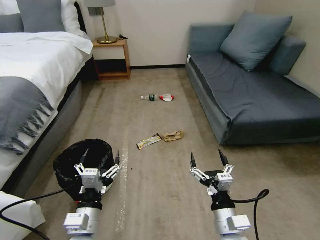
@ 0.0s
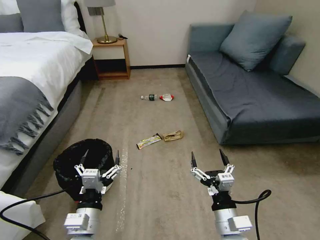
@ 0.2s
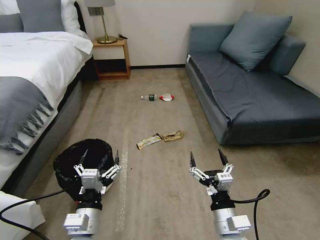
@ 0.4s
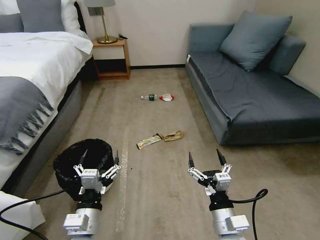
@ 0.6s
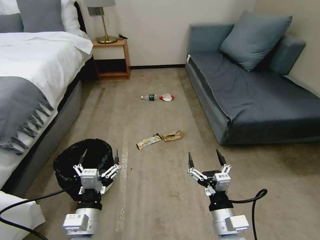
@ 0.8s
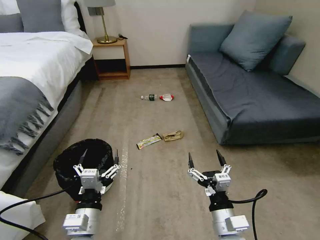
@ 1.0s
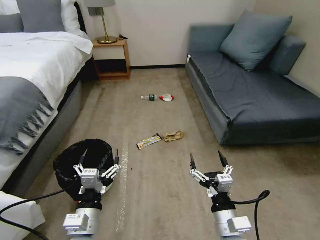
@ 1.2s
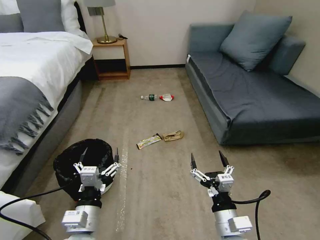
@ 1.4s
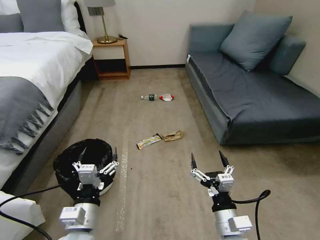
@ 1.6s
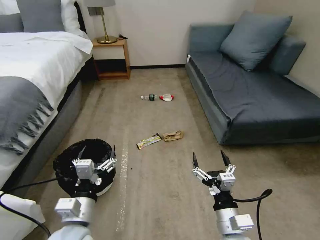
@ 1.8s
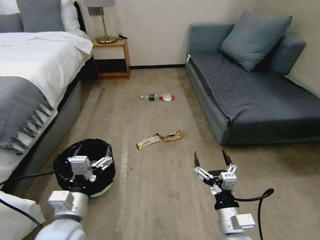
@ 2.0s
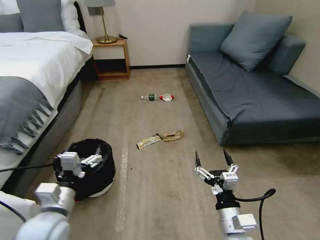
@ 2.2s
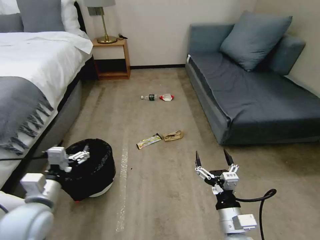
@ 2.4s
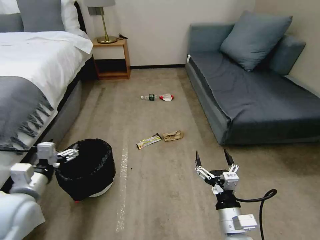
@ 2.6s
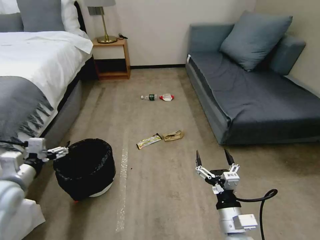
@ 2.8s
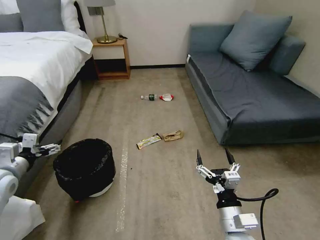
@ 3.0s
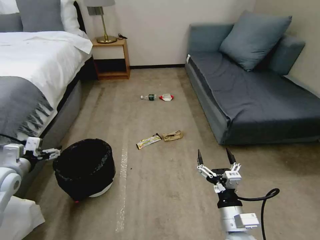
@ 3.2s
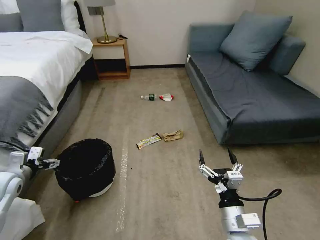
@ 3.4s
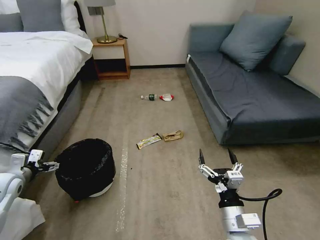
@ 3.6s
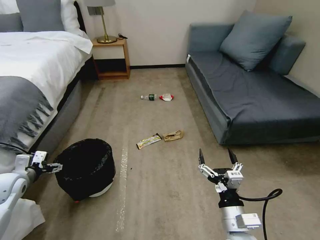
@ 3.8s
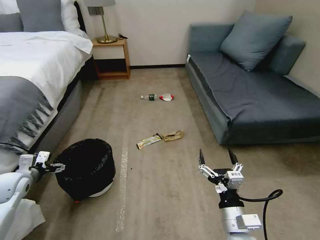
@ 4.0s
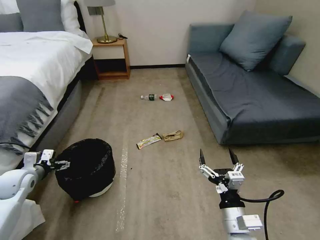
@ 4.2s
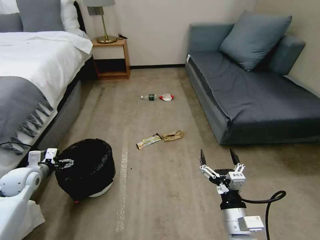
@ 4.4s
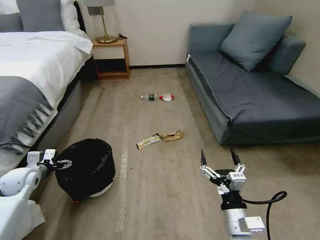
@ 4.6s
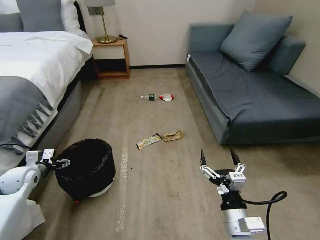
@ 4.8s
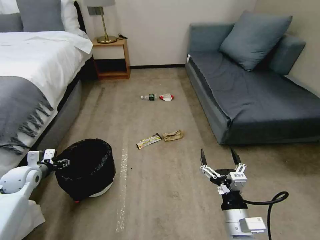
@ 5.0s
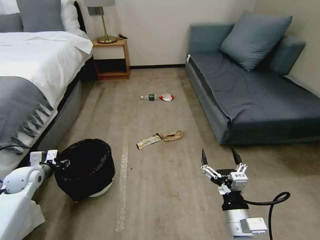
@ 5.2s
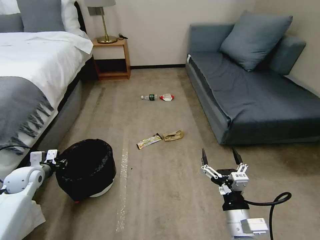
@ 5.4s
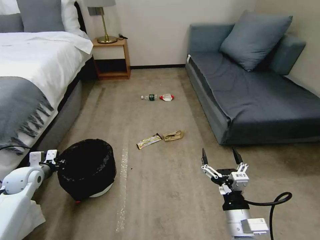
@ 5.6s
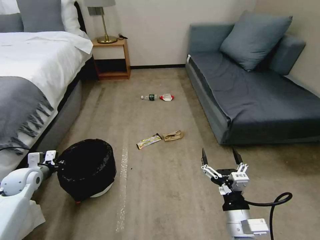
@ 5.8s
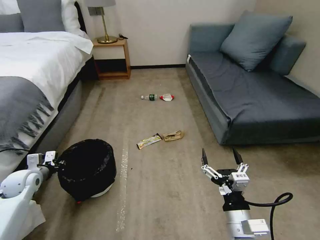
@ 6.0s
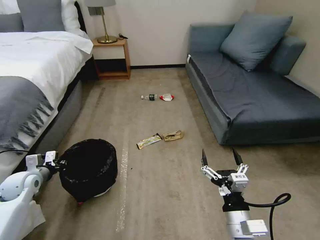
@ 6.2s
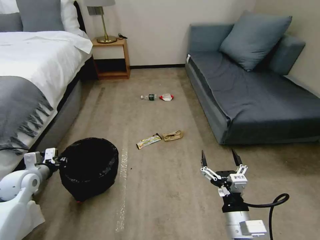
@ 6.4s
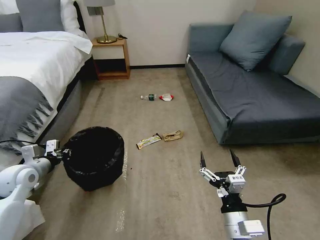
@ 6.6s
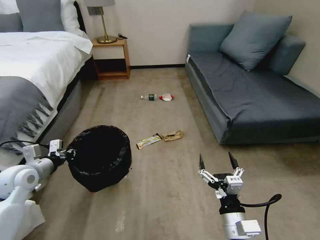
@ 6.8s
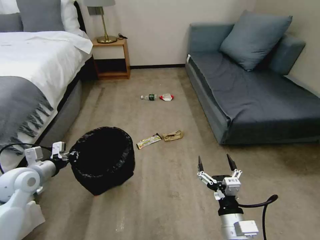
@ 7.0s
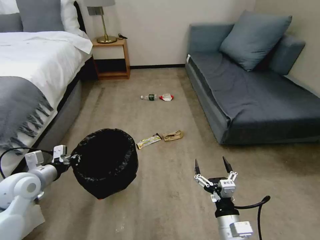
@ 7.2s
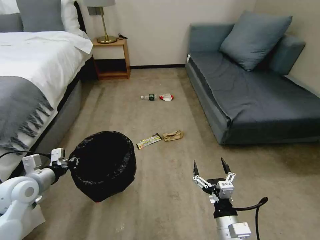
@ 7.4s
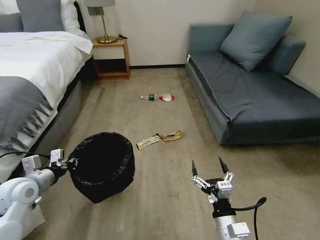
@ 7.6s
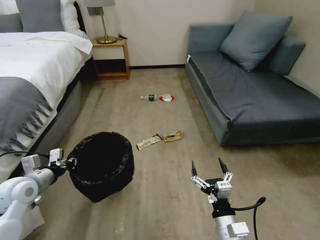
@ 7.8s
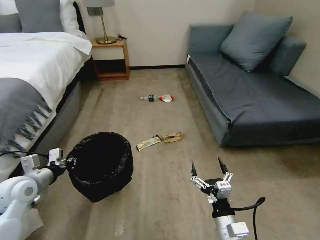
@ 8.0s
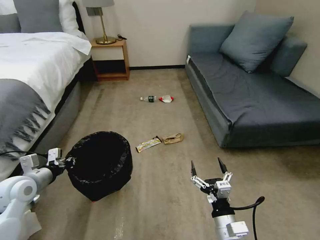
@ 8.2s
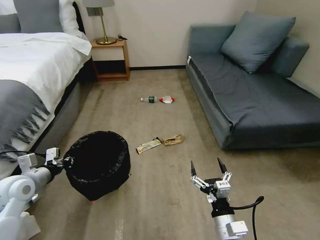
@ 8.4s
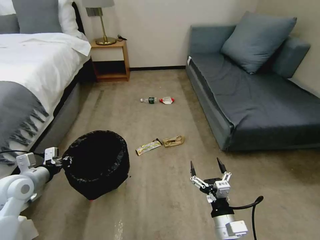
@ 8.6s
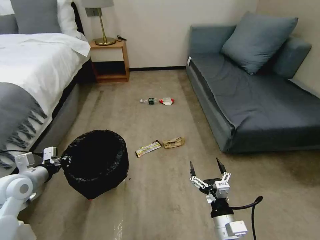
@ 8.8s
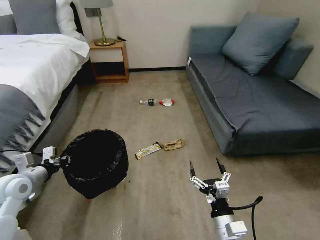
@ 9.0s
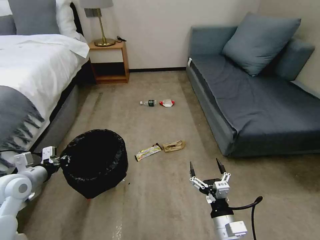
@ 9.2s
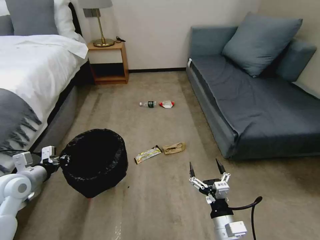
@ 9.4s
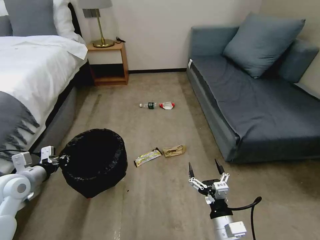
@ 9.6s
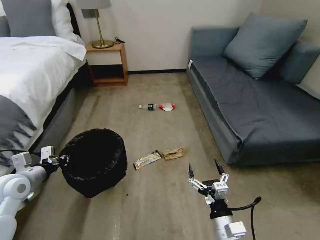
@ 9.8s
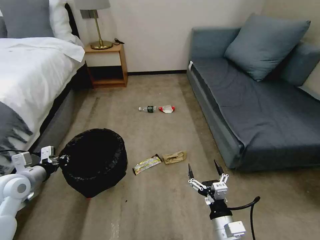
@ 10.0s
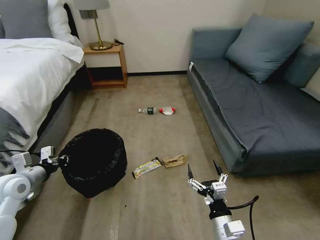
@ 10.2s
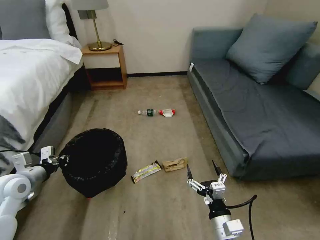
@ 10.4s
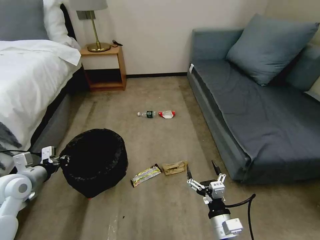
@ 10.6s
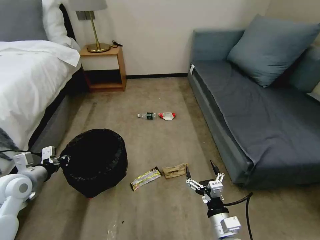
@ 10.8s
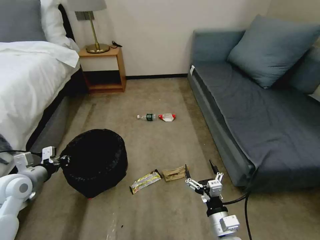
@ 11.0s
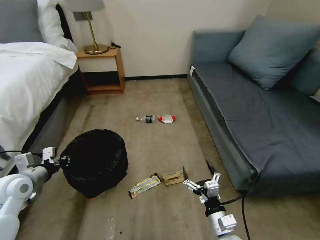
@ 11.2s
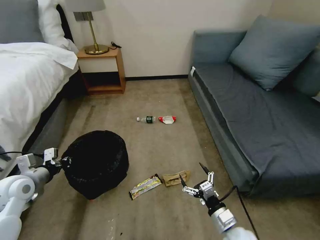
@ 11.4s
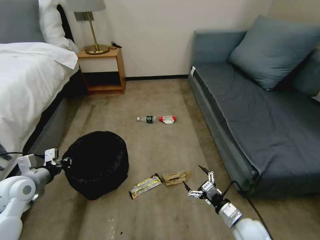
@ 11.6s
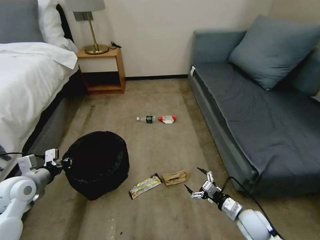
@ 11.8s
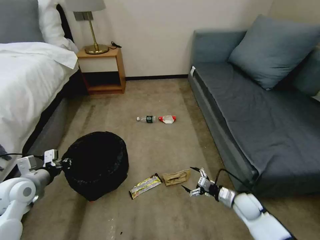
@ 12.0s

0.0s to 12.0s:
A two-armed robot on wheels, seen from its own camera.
Task of the whole recording: Pick up the trash bin, then pick up the garbage on the floor and place it into the trash bin.
1.6s to 3.0s: The left gripper heads to the left and forward, covering some 30 cm.
3.0s to 4.4s: The left gripper travels downward and forward by about 10 cm.
4.4s to 6.0s: The left gripper closes.
6.0s to 7.6s: The left gripper travels to the right, upward and backward by roughly 10 cm; the right gripper travels downward by approximately 5 cm.
10.4s to 12.0s: The right gripper moves forward, to the right and downward, some 25 cm.

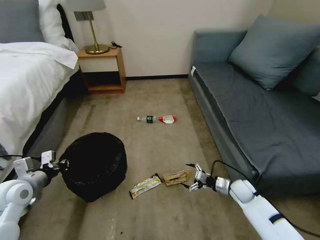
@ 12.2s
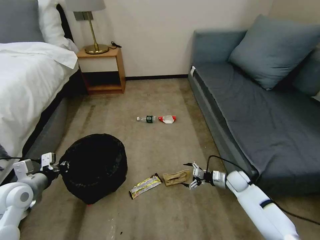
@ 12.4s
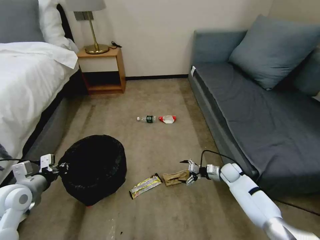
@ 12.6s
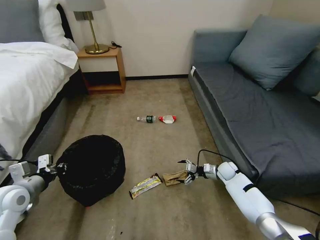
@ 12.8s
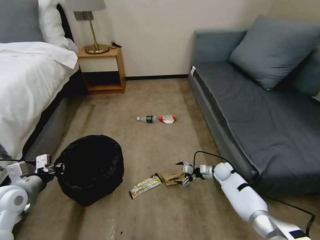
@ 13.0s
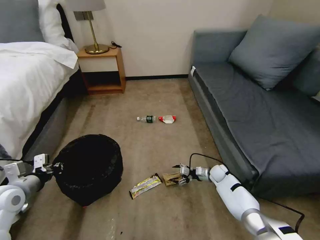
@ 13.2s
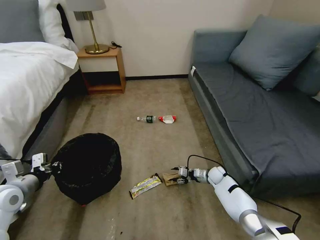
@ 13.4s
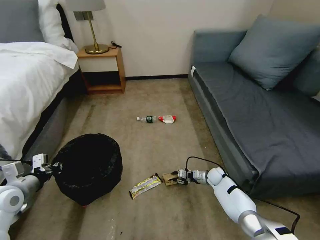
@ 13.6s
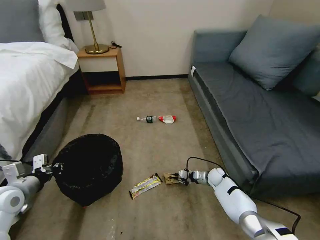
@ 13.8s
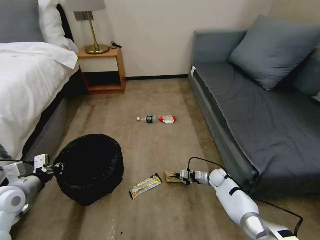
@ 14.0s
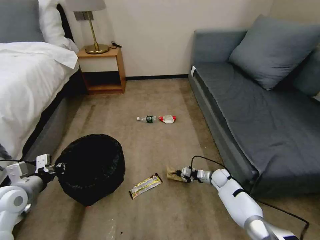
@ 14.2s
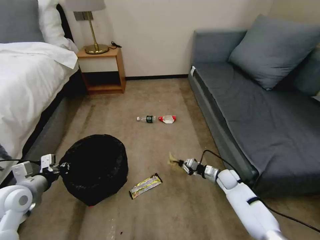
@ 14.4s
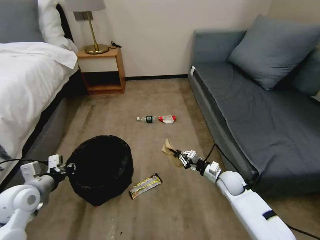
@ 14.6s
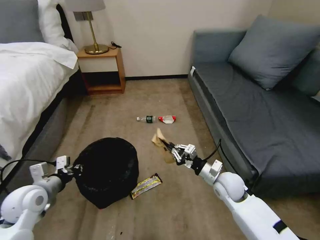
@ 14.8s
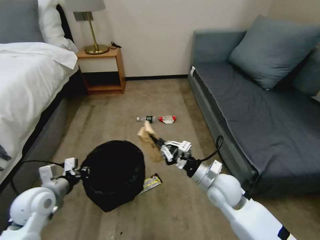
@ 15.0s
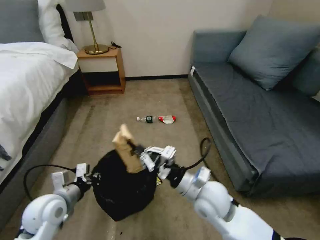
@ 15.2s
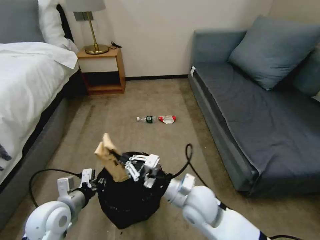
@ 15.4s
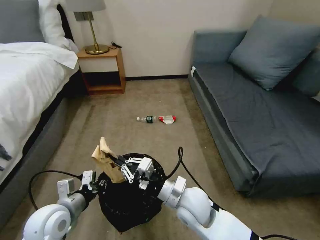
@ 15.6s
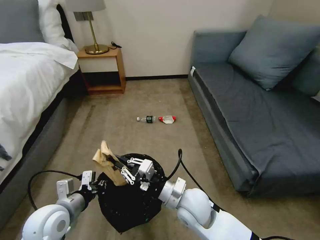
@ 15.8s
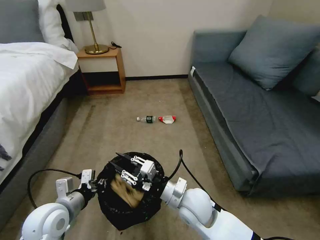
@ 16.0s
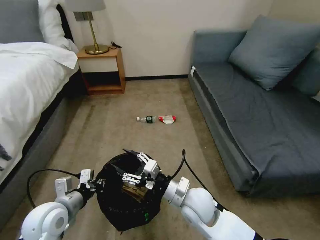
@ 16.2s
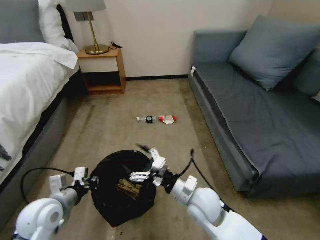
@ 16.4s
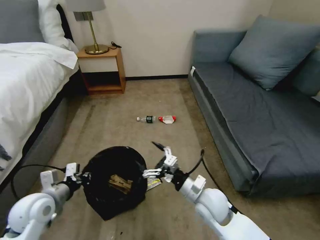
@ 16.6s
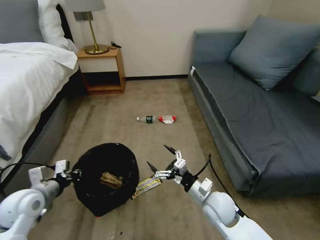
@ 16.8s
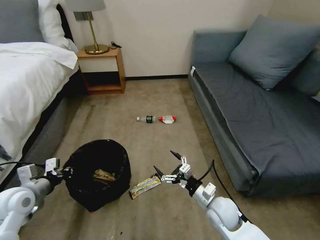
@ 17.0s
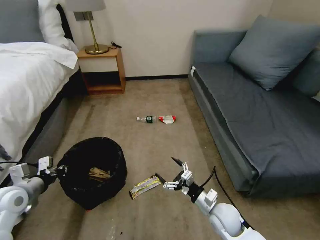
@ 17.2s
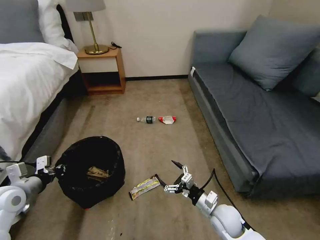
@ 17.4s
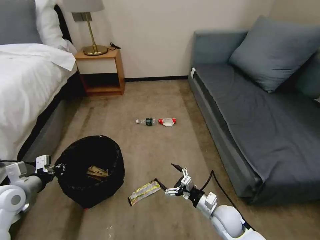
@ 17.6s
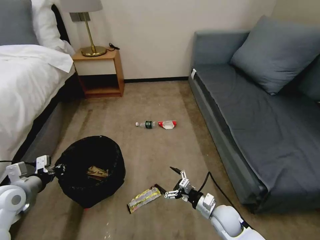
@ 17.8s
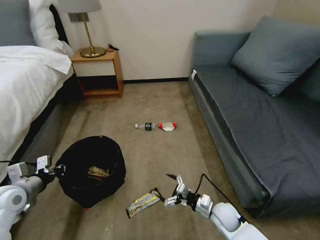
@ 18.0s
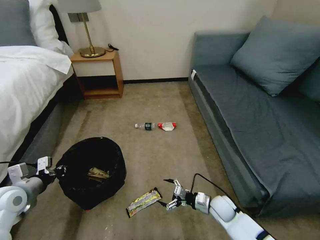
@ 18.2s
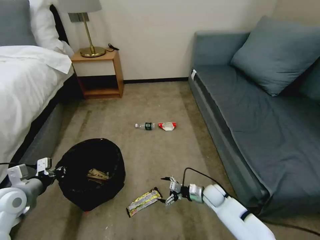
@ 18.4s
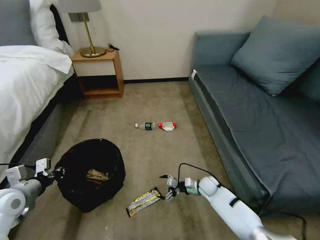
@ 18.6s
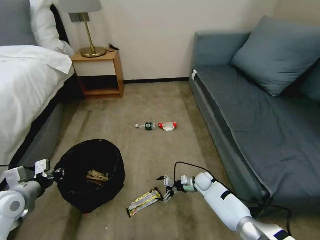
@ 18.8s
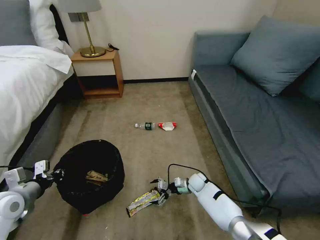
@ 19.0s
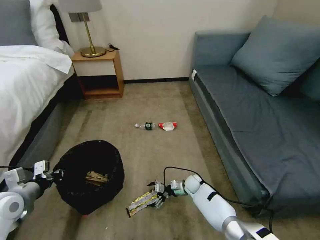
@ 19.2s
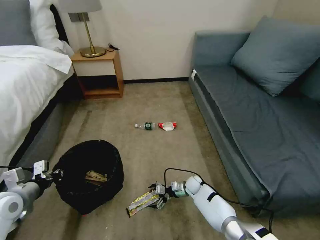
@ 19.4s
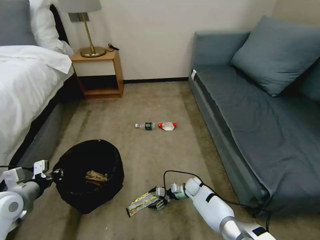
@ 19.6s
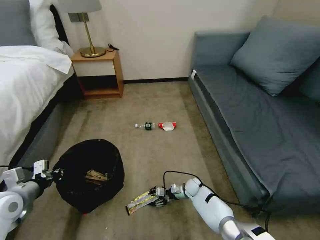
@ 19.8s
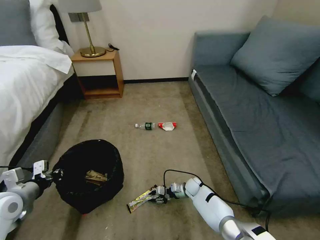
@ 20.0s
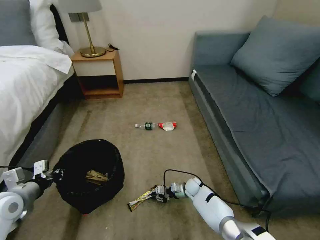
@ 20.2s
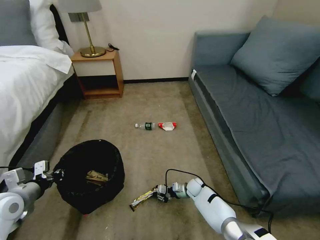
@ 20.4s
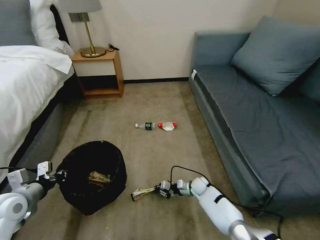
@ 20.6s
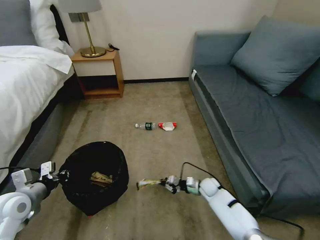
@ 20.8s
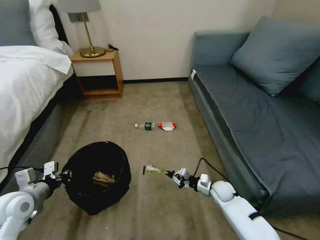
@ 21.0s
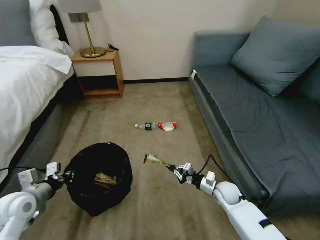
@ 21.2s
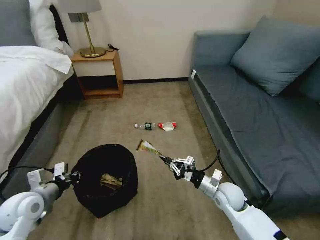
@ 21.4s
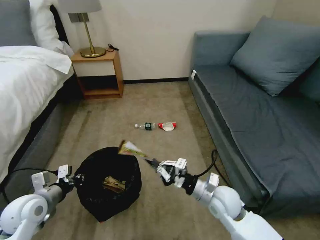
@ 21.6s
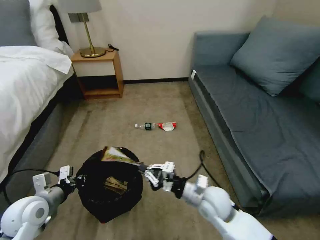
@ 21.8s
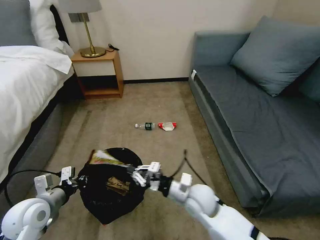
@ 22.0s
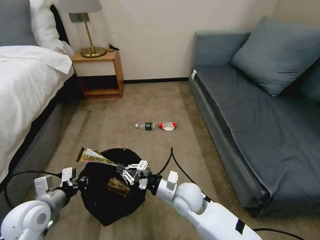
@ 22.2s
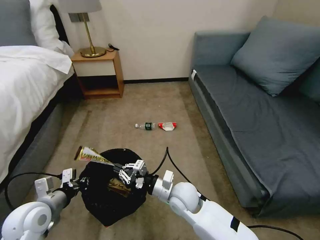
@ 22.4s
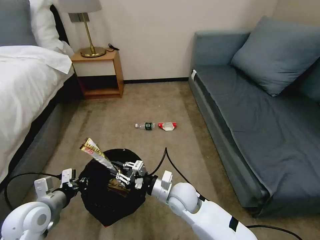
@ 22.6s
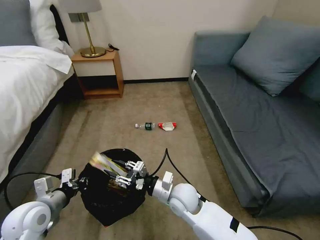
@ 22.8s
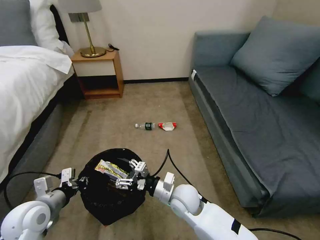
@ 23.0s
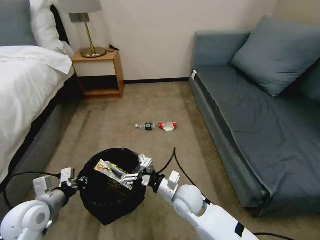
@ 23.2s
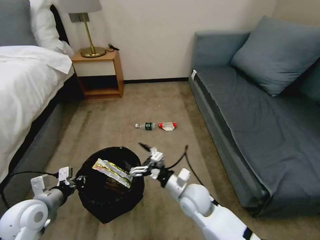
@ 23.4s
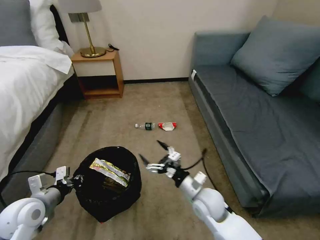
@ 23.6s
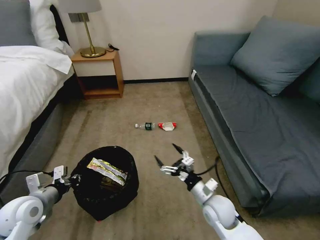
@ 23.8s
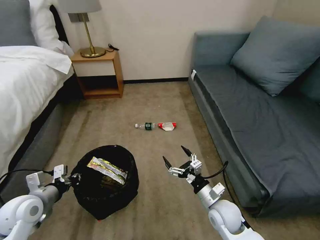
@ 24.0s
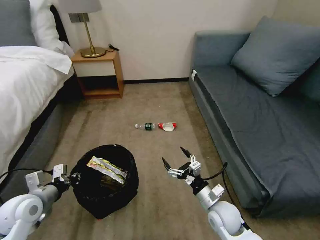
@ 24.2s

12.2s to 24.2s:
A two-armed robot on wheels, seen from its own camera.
Task of the whole recording: Pick up the trash bin, then pick up the garbage on the floor and place it into the trash bin.
12.2s to 13.8s: The right gripper goes roughly 15 cm forward, downward and to the left, and closes.
13.8s to 15.2s: The right gripper goes some 35 cm upward, backward and to the left. The left gripper moves to the right, some 10 cm.
15.2s to 16.6s: The right gripper is displaced downward by about 5 cm, and opens up.
16.6s to 18.2s: The right gripper goes about 20 cm downward and to the right, while the left gripper shifts approximately 10 cm to the left.
18.2s to 19.8s: The right gripper is displaced forward, downward and to the left by some 15 cm, and closes up.
19.8s to 21.2s: The right gripper travels upward, to the right and backward by roughly 15 cm, and closes its fingers.
21.2s to 22.6s: The left gripper goes about 5 cm to the right. The right gripper travels to the left and upward by approximately 20 cm.
22.6s to 24.2s: The right gripper moves to the right, about 15 cm, and opens its fingers.
